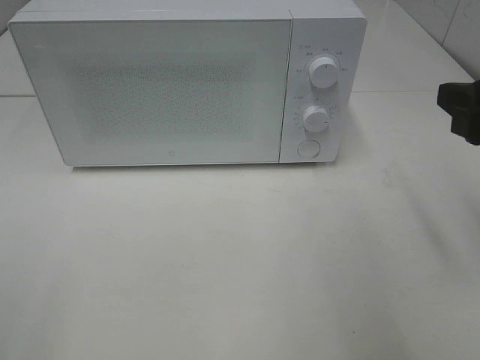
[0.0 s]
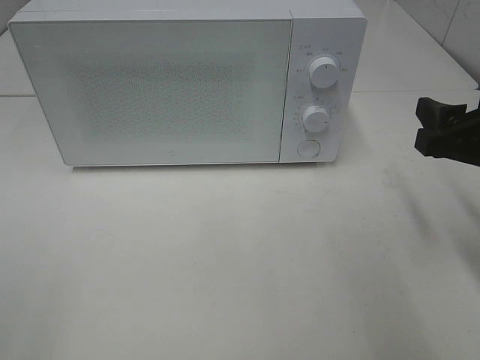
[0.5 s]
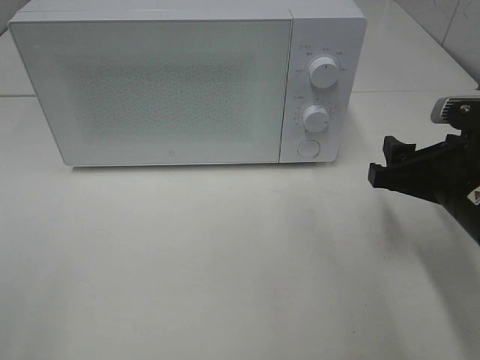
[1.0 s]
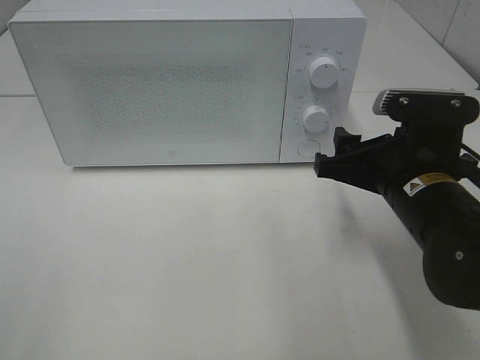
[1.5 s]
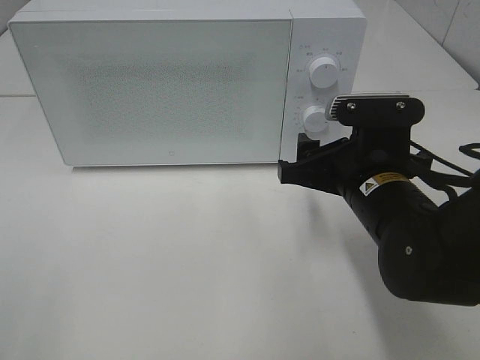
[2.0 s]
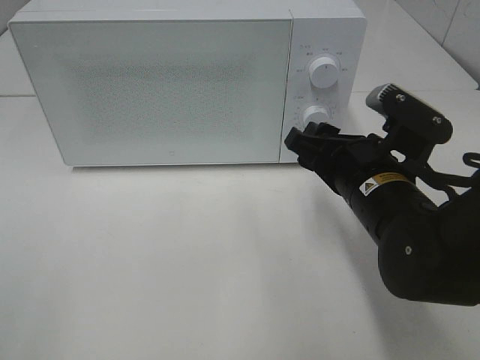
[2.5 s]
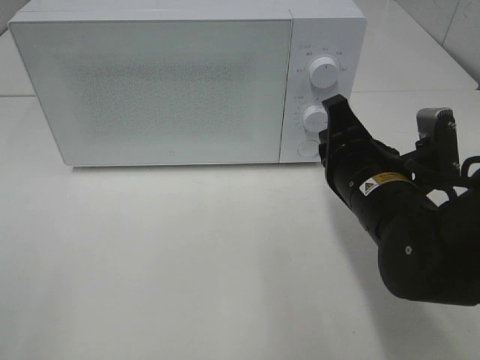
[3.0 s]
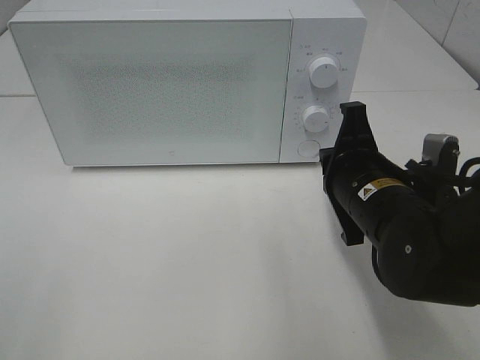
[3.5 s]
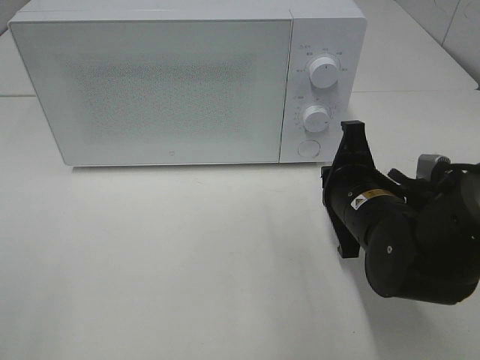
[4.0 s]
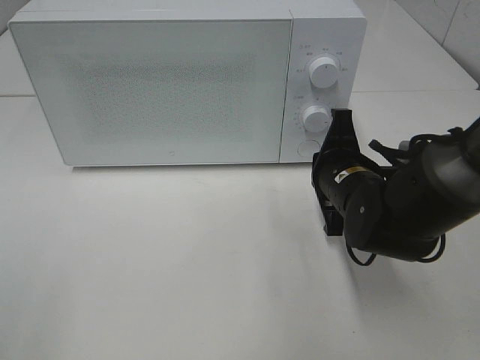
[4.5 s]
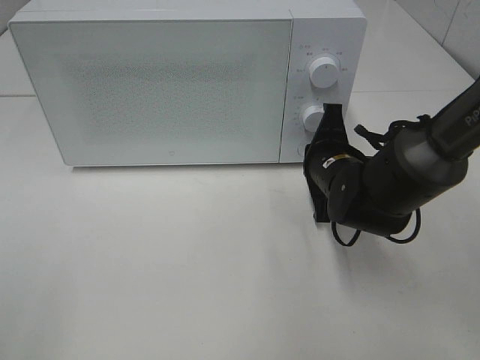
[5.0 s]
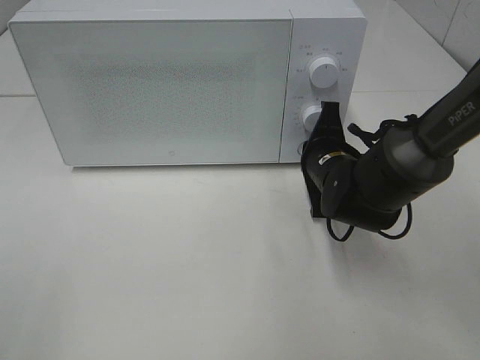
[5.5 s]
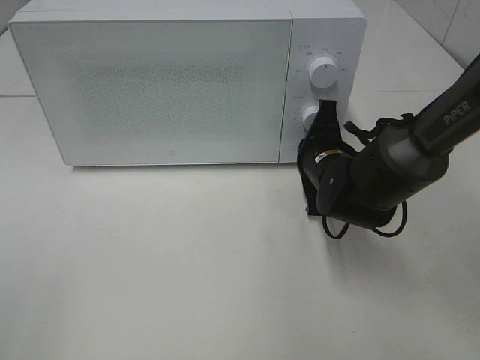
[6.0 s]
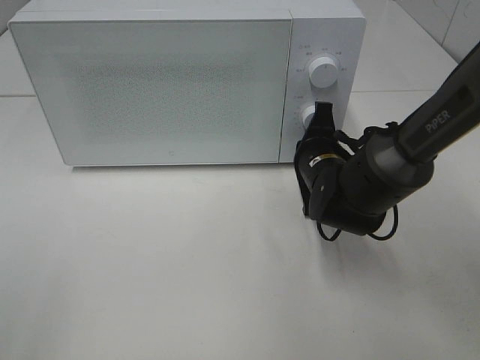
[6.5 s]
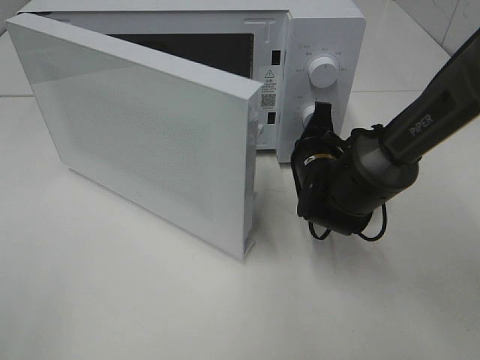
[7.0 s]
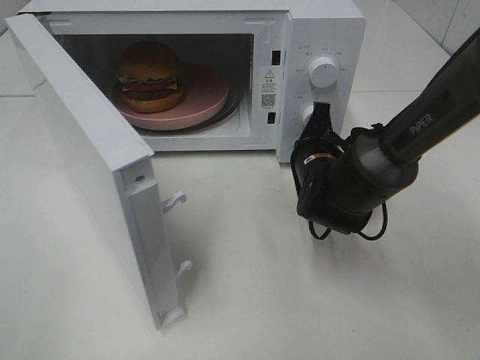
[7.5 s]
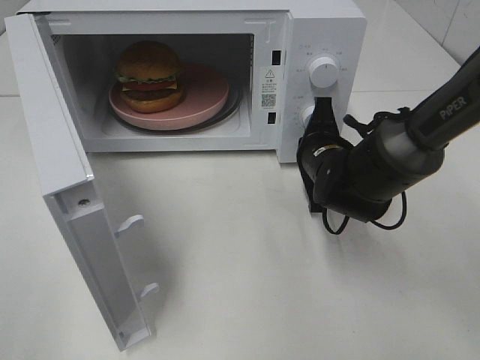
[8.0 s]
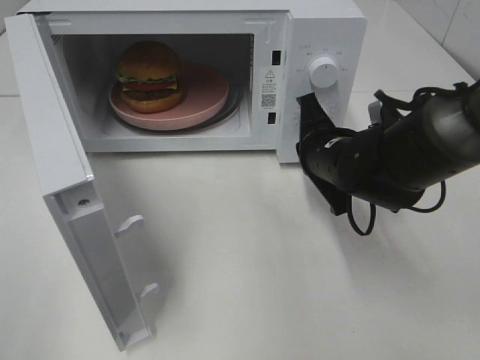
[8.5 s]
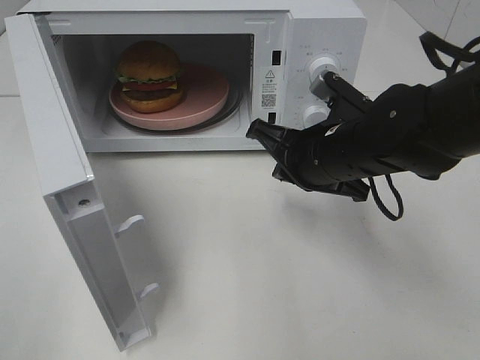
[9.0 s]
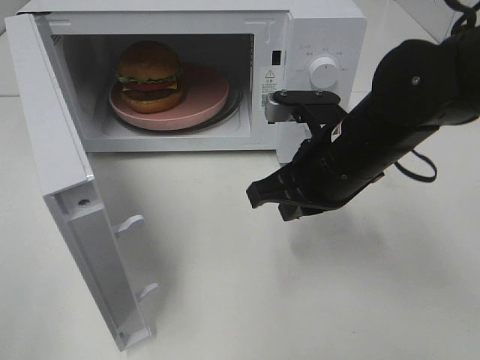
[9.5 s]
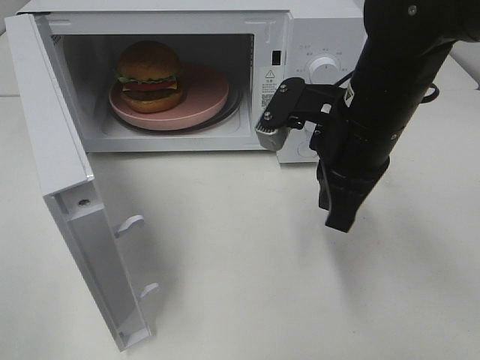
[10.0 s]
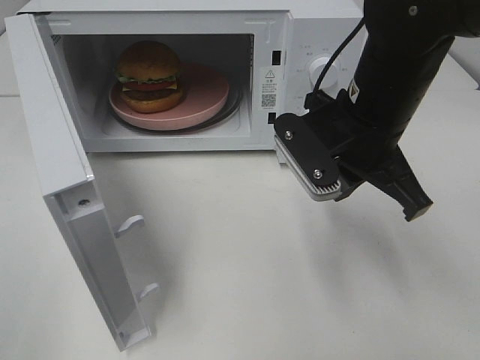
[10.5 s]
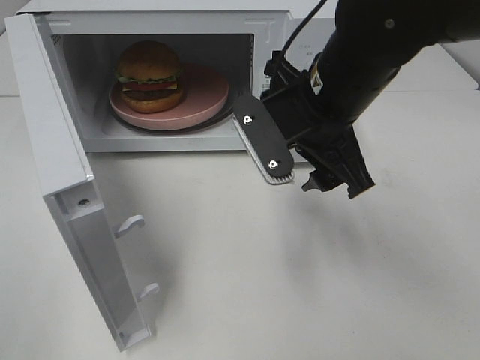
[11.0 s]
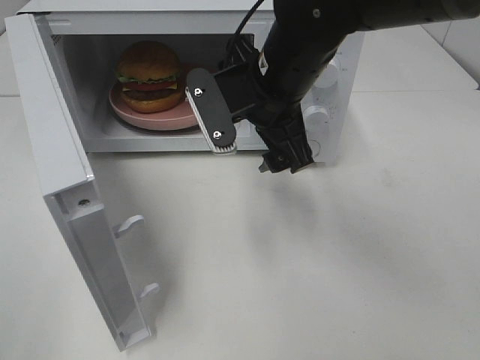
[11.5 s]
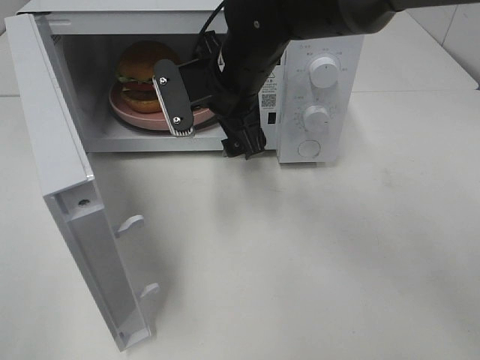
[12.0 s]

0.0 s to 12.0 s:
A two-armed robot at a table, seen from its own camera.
Task of the whole recording: Heat the burger.
Step, 0.0 to 8.0 s: Right hand: press the switch.
0.0 to 2.0 s: The right gripper shifts about 15 cm to the left, downward and forward.
2.0 to 4.0 s: The right gripper closes up.
4.0 to 6.0 s: The right gripper moves forward, some 10 cm.
8.0 to 10.0 s: The right gripper goes some 15 cm upward and backward.
10.0 to 12.0 s: The right gripper shifts some 15 cm to the left and forward, and opens.

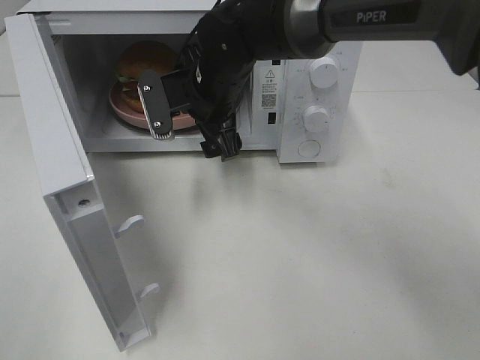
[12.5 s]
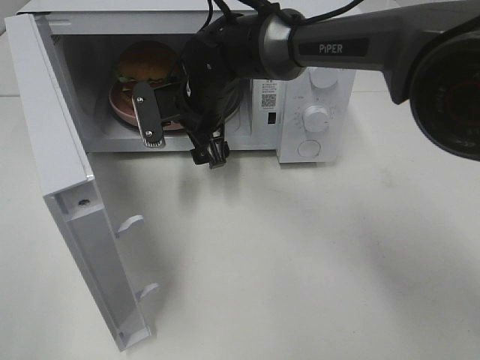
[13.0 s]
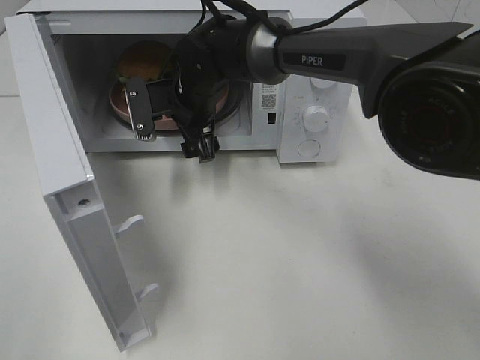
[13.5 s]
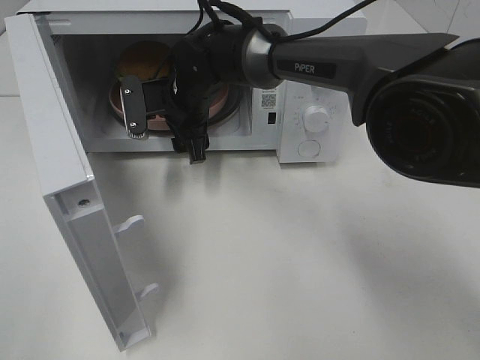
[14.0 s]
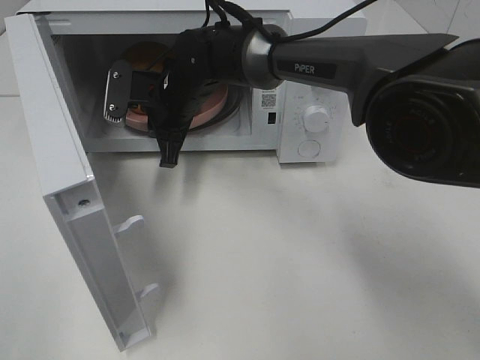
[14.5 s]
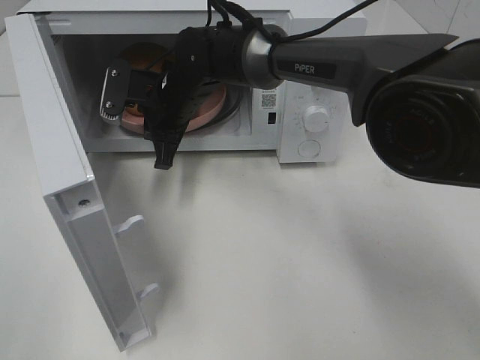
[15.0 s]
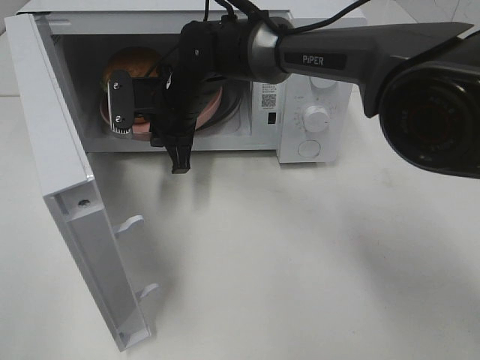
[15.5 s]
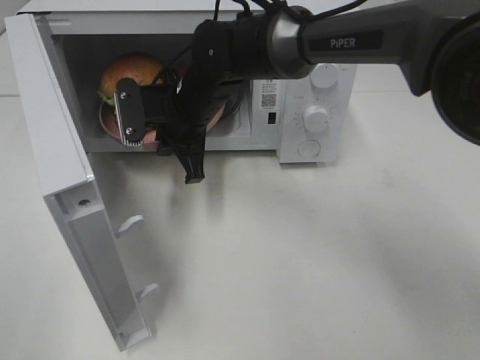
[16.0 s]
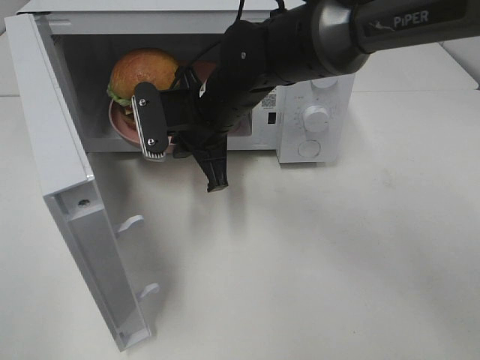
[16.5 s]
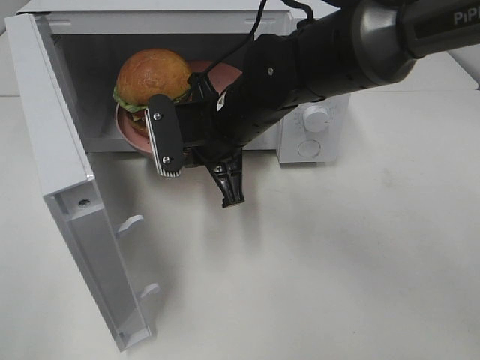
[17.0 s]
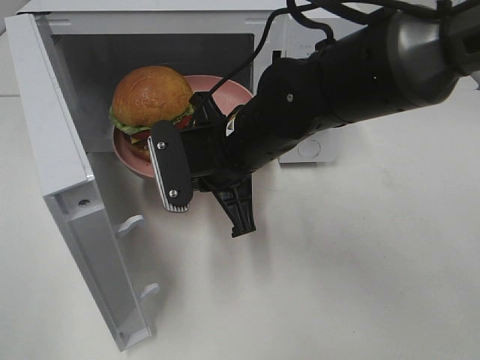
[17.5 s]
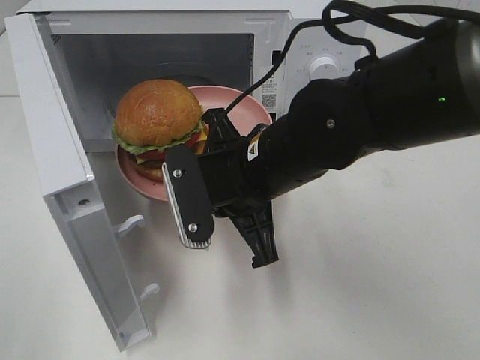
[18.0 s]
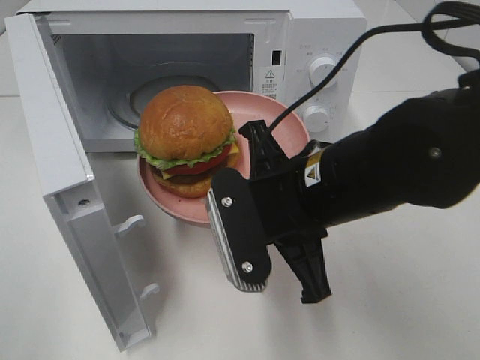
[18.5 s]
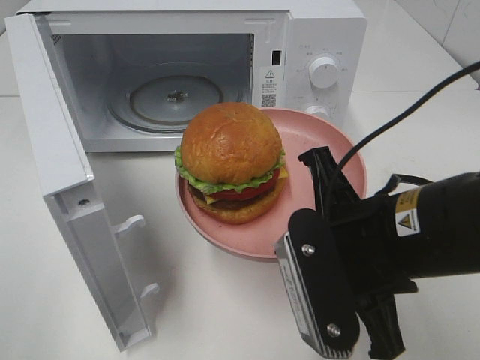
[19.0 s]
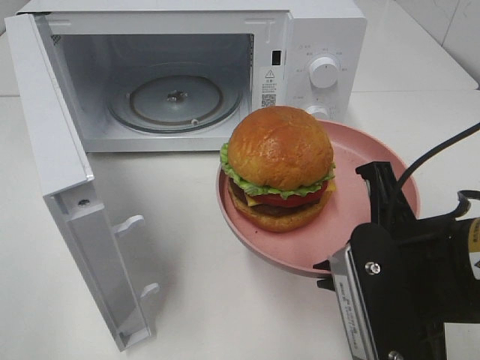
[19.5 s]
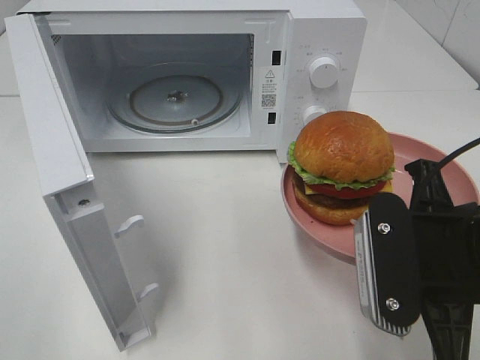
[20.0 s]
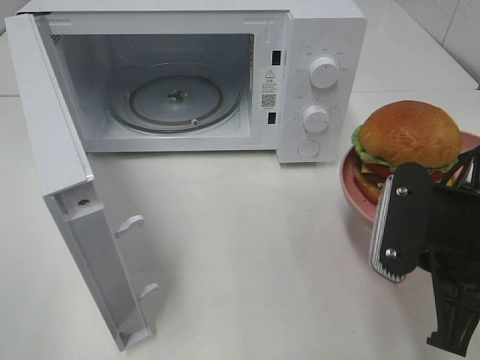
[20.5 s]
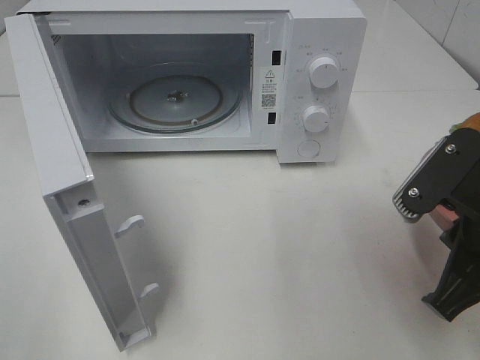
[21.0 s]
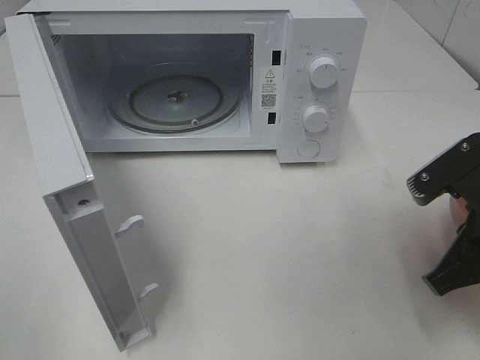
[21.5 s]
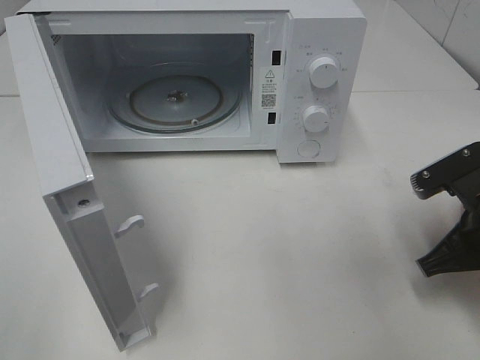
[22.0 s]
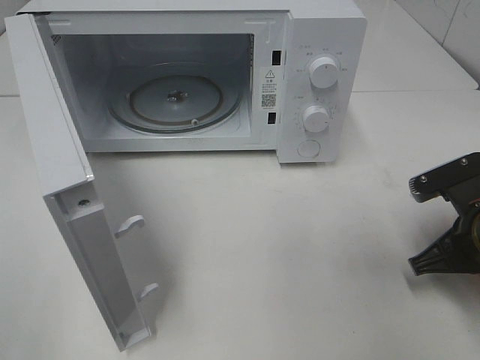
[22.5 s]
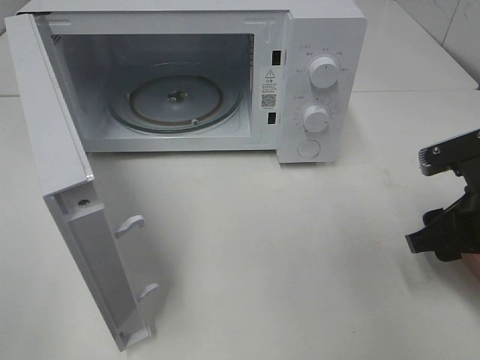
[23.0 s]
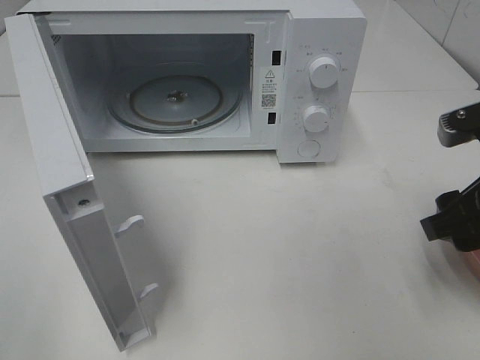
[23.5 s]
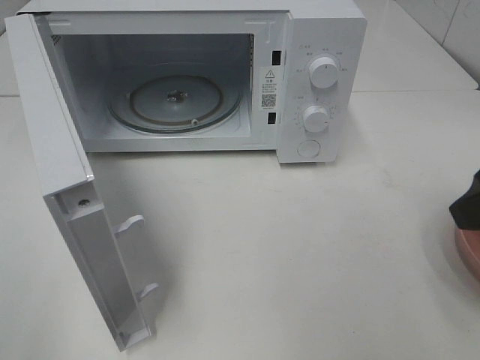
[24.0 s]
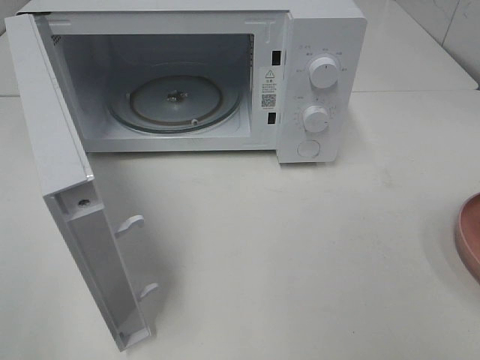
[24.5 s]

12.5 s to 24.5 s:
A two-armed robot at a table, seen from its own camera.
Task of the whole recording: Heat the burger.
Step, 12.5 to 14.5 s: Right hand: grab the plate with the hamburger.
Step, 15.0 to 22.5 s: Right hand: place the plate on the table.
12.5 to 14.5 s: The right gripper ends up roughly 5 cm from where it was, and closes its fingers.
14.5 to 16.5 s: The right gripper shifts approximately 10 cm backward and to the right.
16.5 to 18.5 s: The right gripper is displaced backward and to the right by approximately 20 cm.
18.5 to 20.5 s: The right gripper heads to the right and backward, covering about 15 cm.
20.5 to 22.5 s: The right gripper moves downward, to the right and forward, roughly 15 cm.
22.5 to 24.5 s: The right gripper is displaced upward and backward by some 25 cm, and opens its fingers.

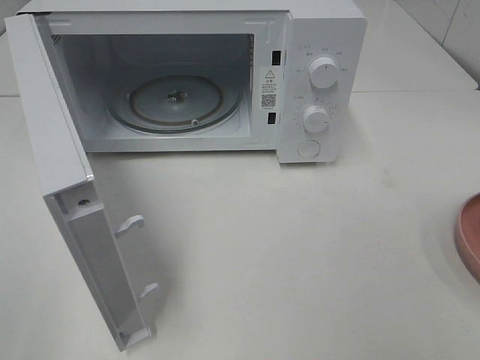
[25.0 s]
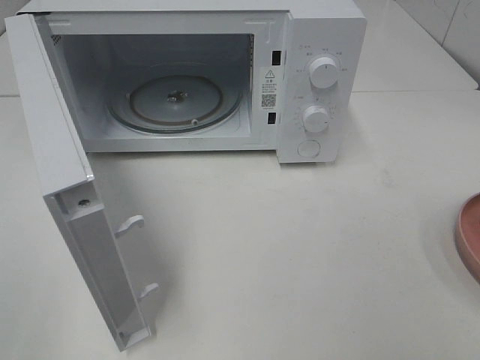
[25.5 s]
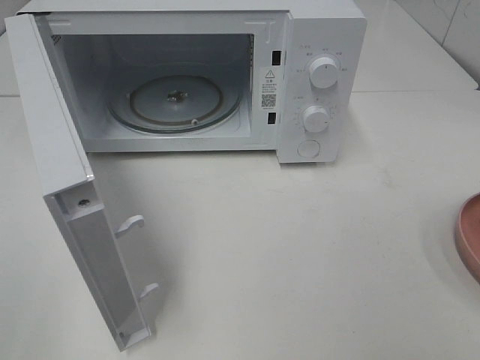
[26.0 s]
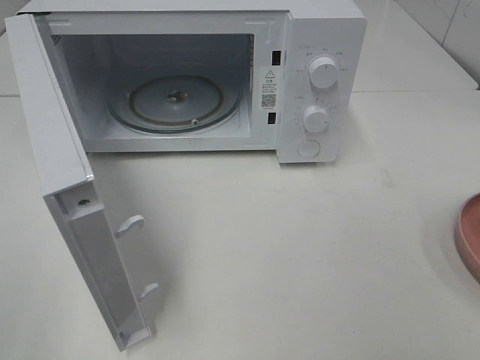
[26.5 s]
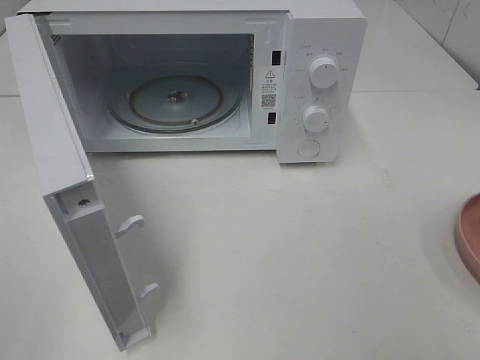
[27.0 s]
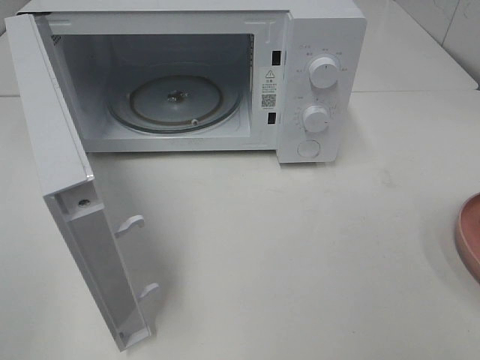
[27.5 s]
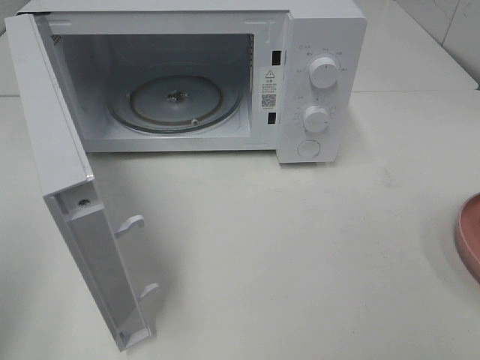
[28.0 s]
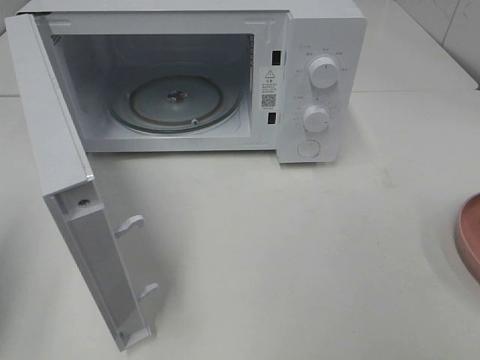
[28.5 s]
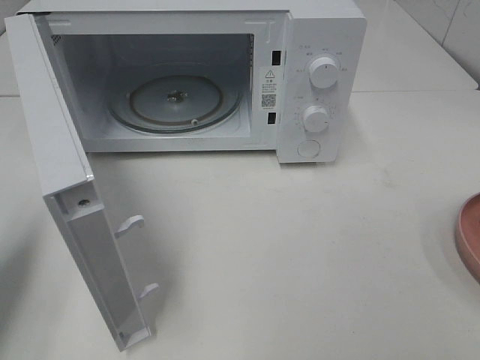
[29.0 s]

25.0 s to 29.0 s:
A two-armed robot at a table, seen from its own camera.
Task of the whole recording: Heat the burger.
27.0 to 29.0 s: The left gripper heads forward, covering about 20 cm, and closes up.
